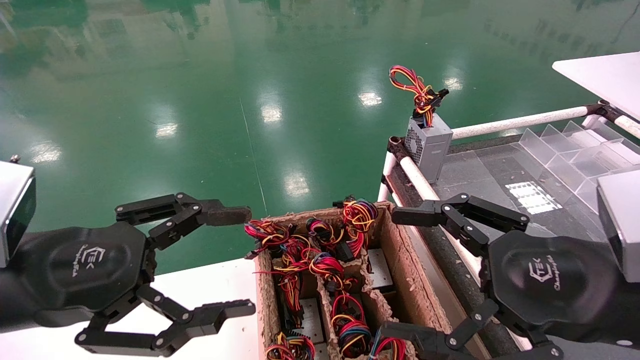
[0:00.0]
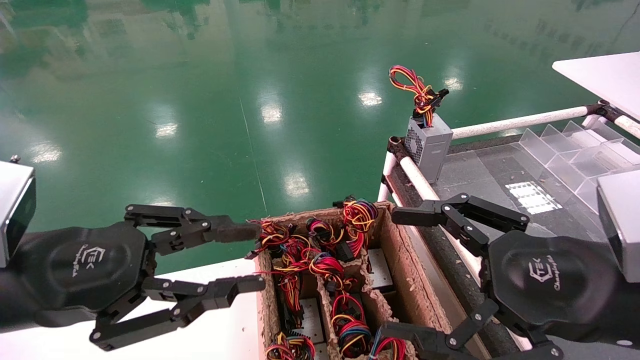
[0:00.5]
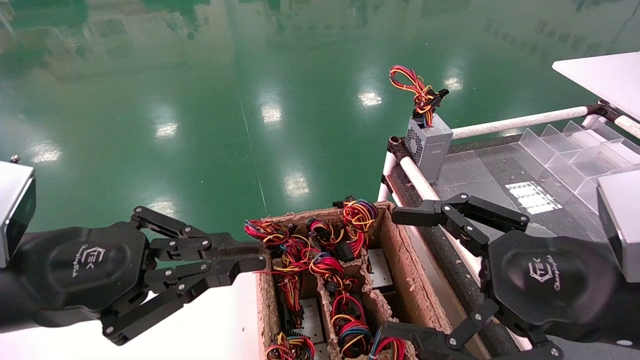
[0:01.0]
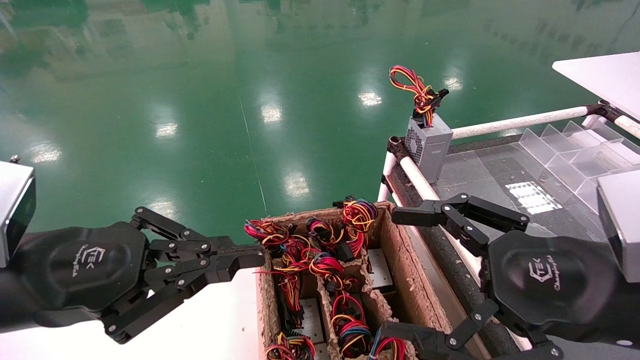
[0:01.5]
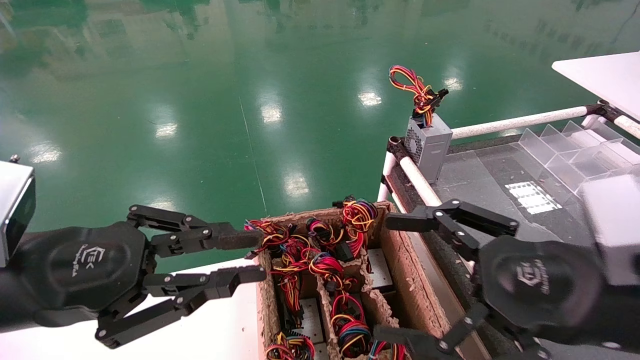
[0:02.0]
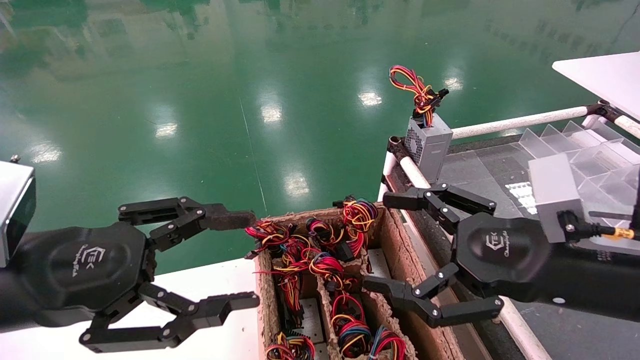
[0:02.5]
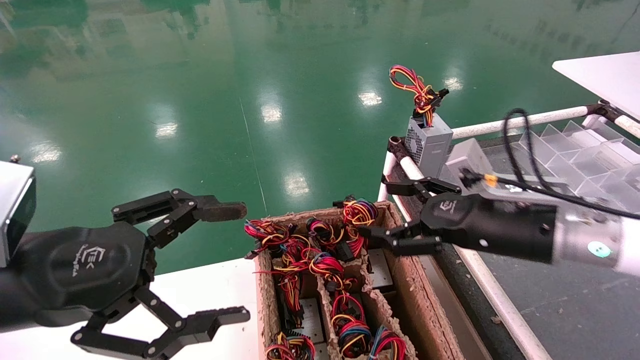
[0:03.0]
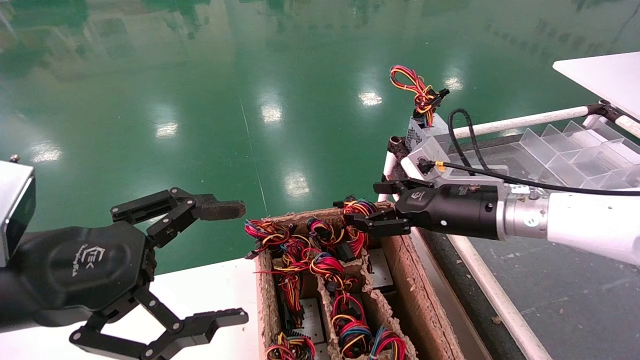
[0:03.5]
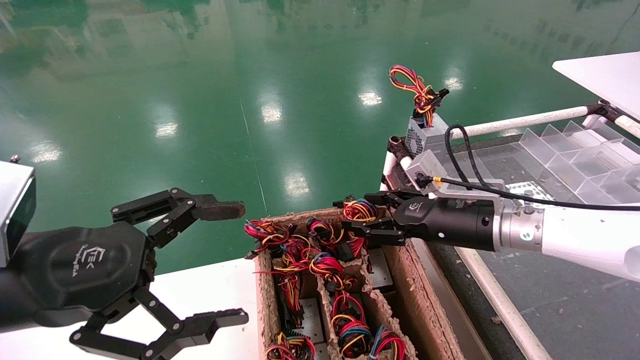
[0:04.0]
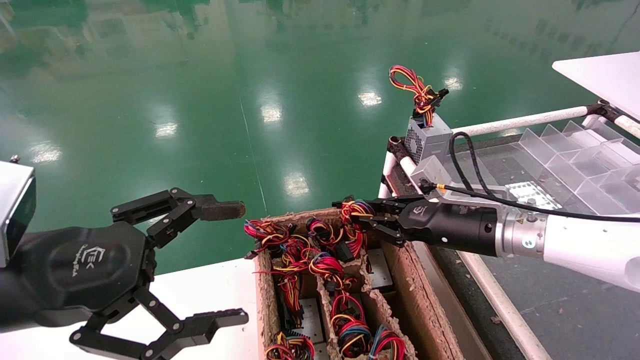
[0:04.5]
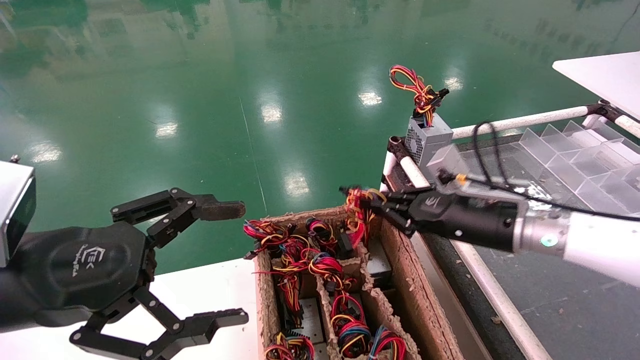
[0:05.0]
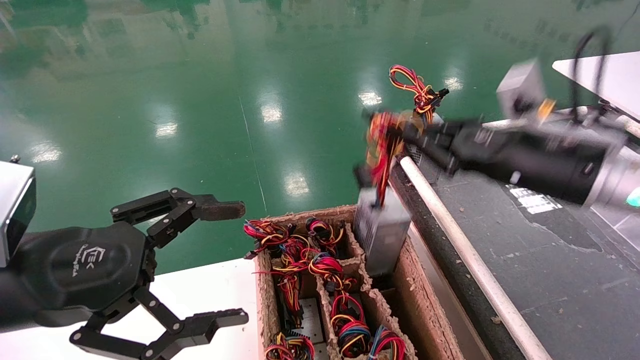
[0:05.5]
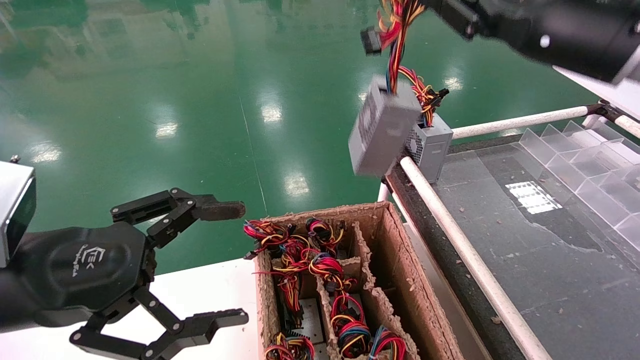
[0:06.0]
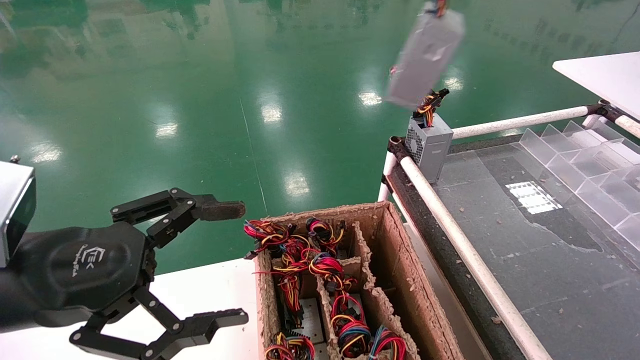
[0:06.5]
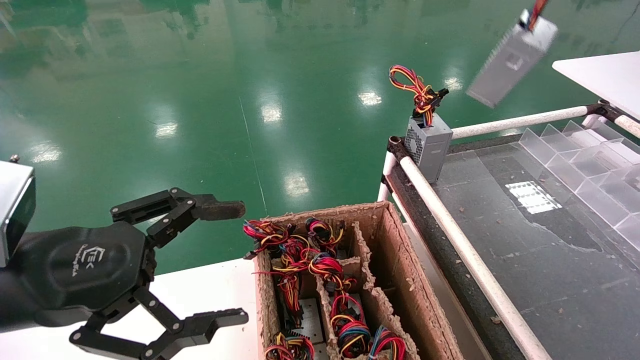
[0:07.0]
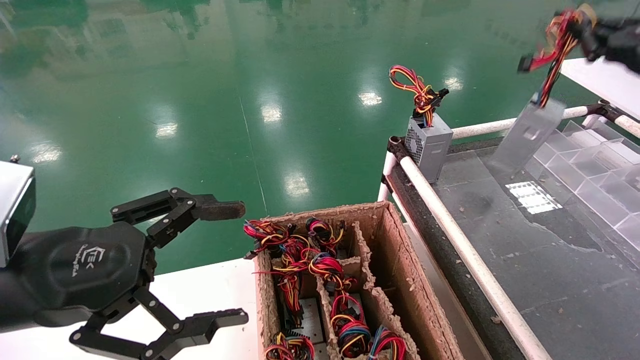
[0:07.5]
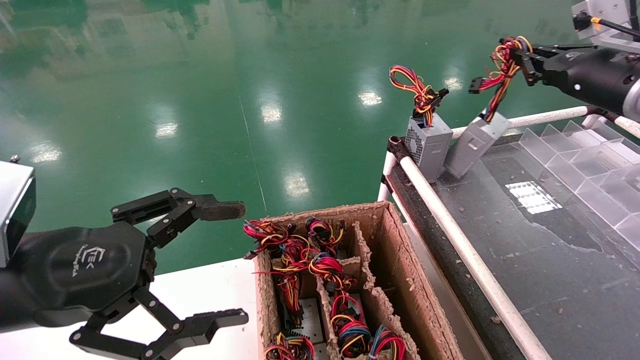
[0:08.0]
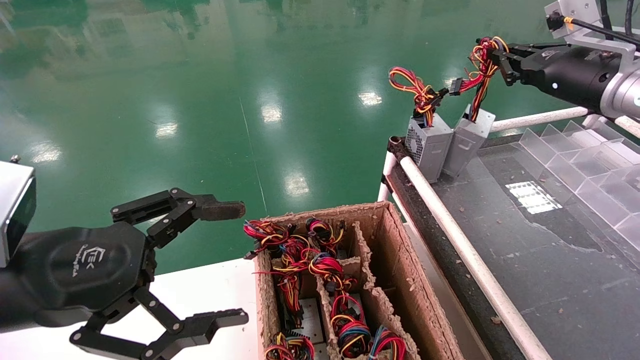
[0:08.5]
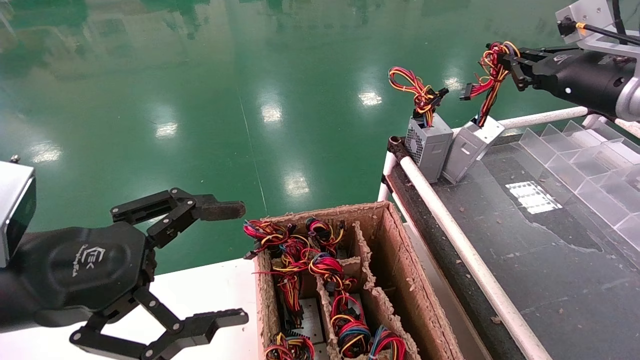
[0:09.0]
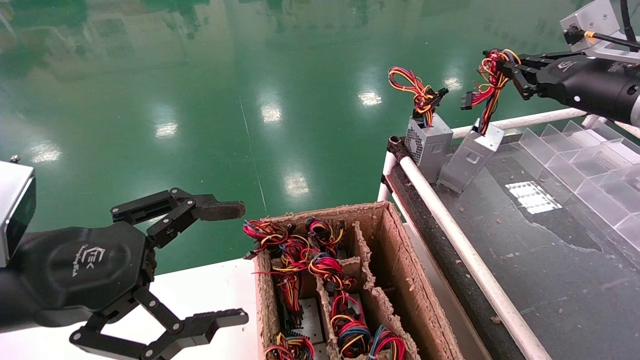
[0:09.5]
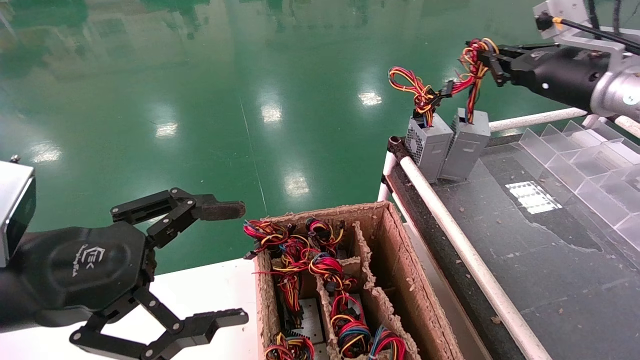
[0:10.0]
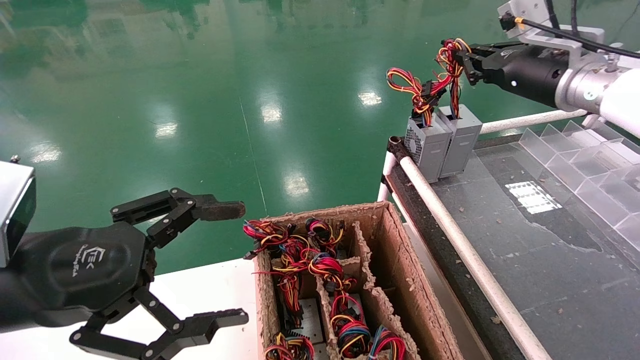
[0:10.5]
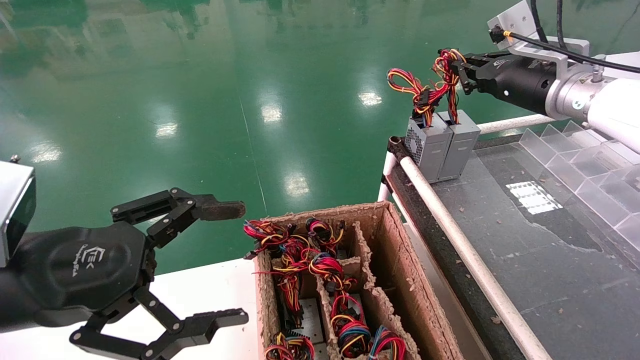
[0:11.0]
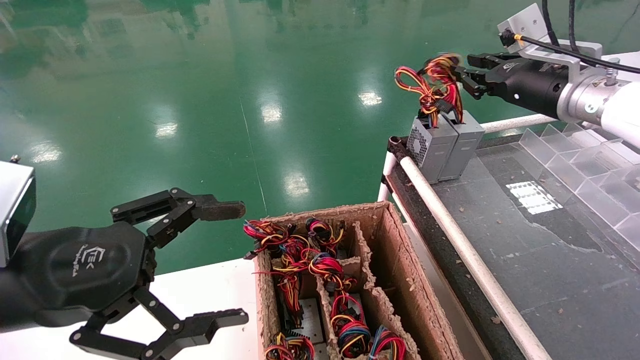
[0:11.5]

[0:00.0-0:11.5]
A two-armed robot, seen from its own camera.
Step, 0:01.5 to 0:05.0: Grab and lift the power supply from the large box.
Step, 0:05.5 to 0:11.0: Place the power supply on the operating table.
0:00.0 to 0:02.0: The left gripper closes.
0:02.0 to 0:04.0: The left gripper opens up. The right gripper heads forward, covering about 20 cm.
0:04.0 to 0:06.0: The right gripper moves upward, approximately 20 cm, and closes up.
0:06.0 to 0:07.5: The right gripper shifts about 15 cm to the right.
0:07.5 to 0:09.5: The right gripper travels to the left by roughly 5 cm.
0:09.5 to 0:11.5: The right gripper is displaced to the left by roughly 5 cm.

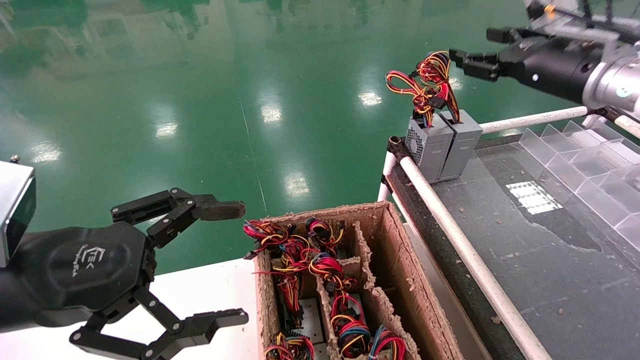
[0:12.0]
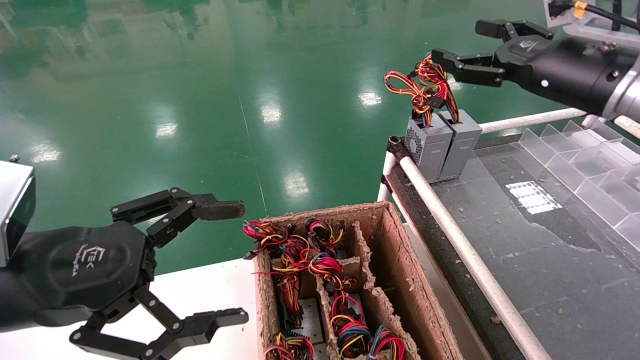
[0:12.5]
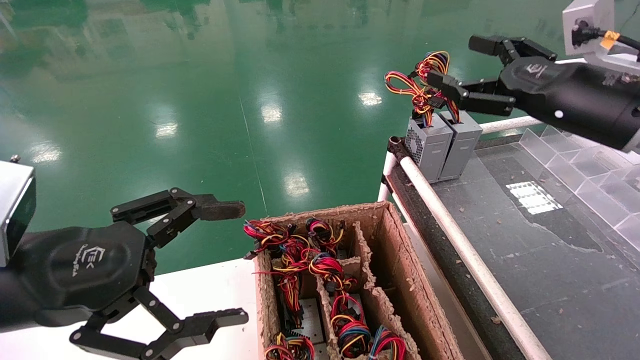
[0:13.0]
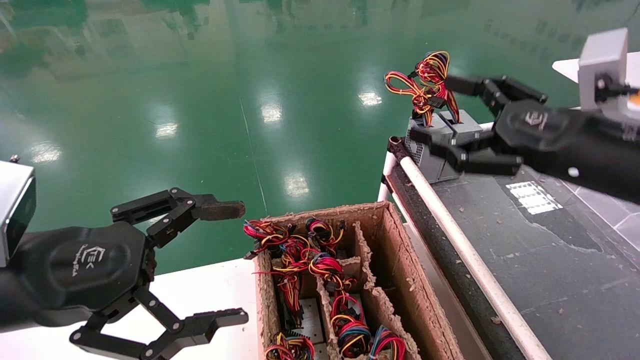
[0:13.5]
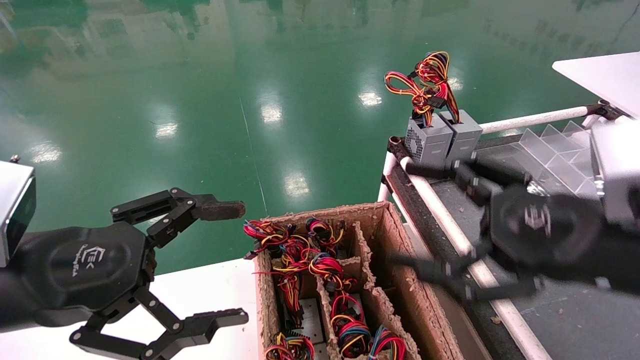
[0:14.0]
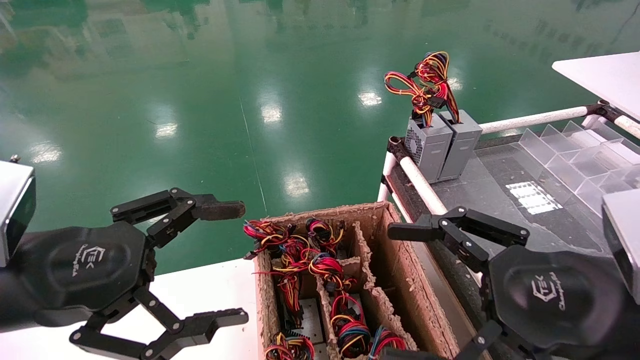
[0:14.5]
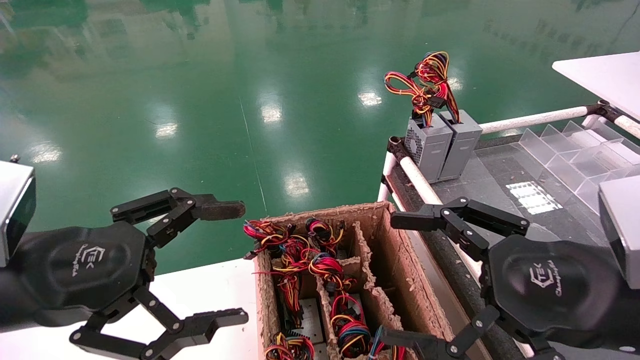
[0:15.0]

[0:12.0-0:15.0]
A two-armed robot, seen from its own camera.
0:12.0 to 0:13.5: The right gripper heads backward and downward, covering roughly 15 cm, and opens.
0:13.5 to 0:15.0: The right gripper goes some 10 cm backward and downward.
